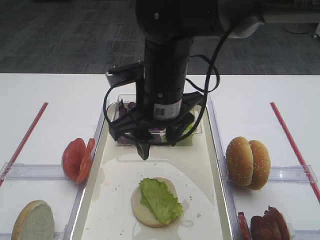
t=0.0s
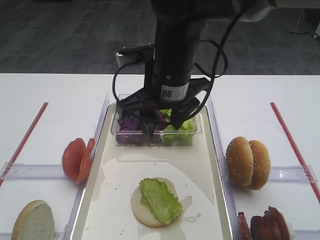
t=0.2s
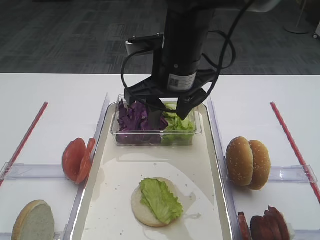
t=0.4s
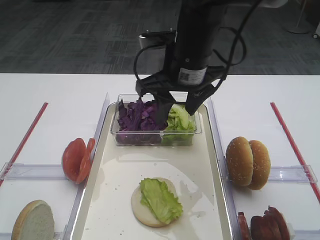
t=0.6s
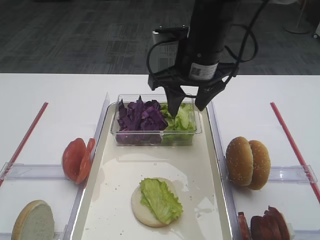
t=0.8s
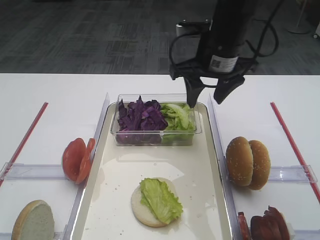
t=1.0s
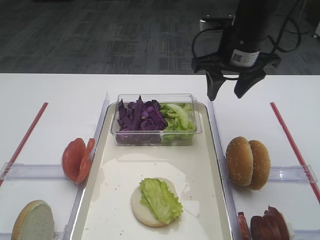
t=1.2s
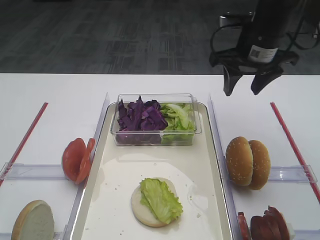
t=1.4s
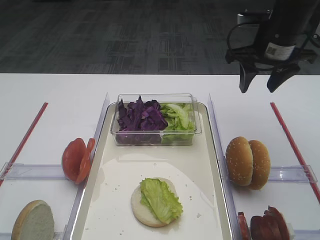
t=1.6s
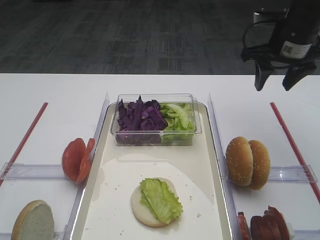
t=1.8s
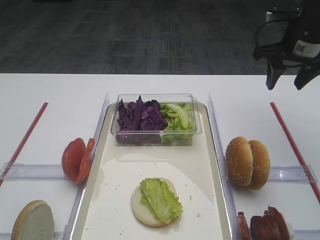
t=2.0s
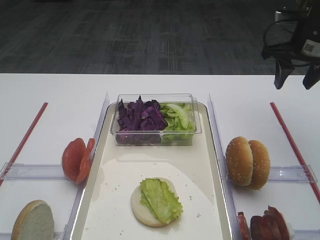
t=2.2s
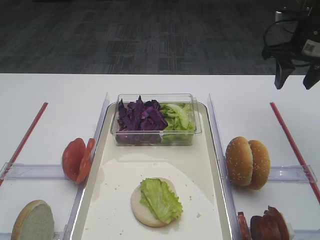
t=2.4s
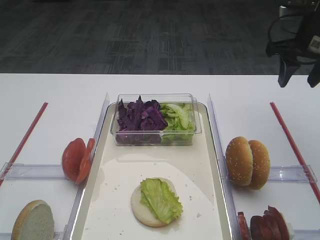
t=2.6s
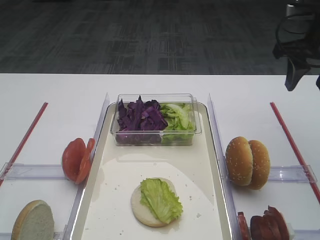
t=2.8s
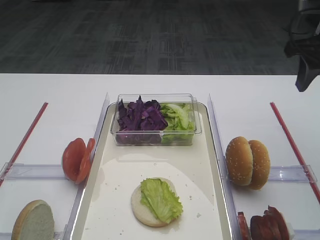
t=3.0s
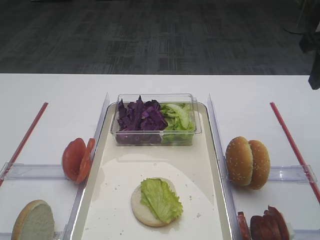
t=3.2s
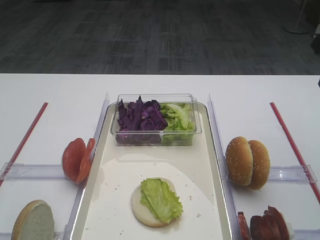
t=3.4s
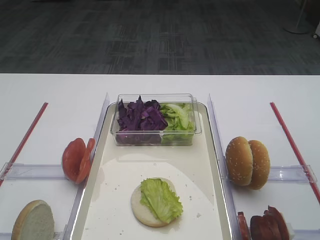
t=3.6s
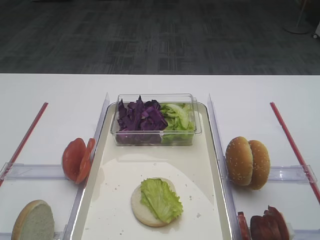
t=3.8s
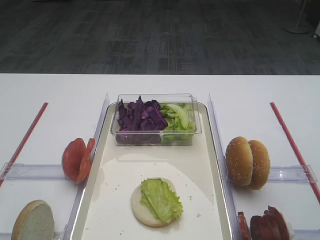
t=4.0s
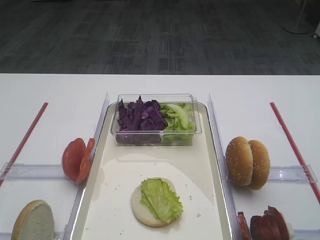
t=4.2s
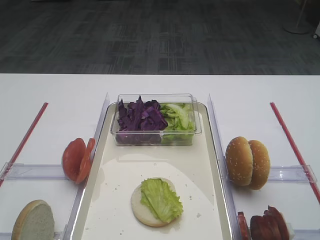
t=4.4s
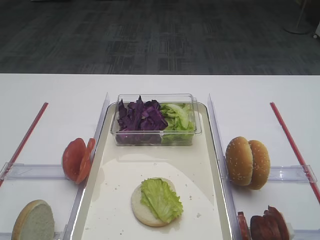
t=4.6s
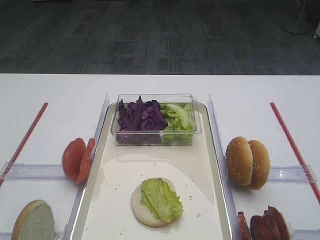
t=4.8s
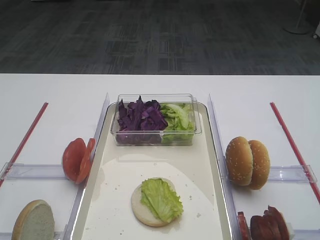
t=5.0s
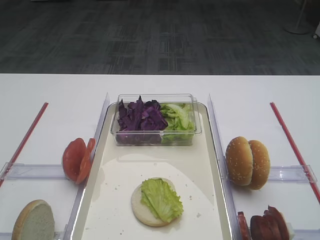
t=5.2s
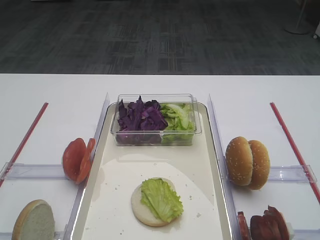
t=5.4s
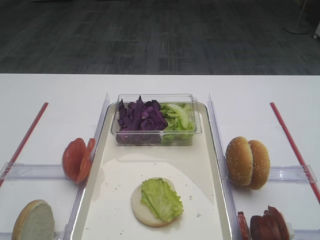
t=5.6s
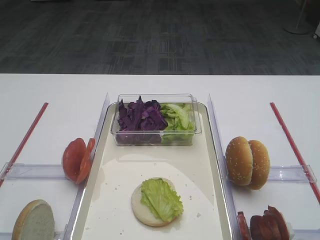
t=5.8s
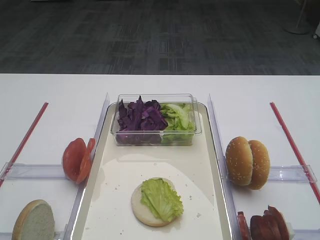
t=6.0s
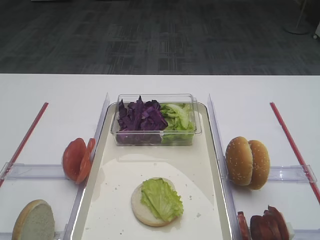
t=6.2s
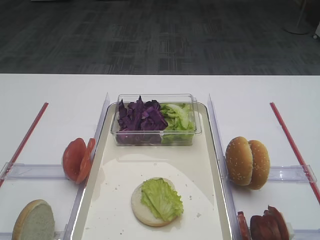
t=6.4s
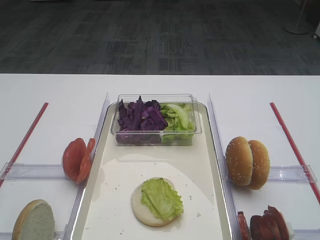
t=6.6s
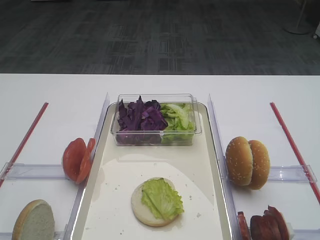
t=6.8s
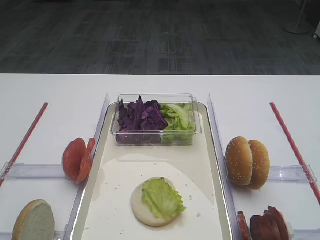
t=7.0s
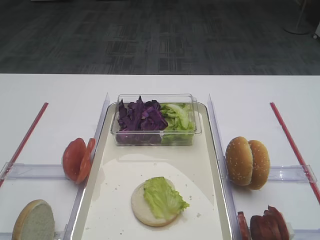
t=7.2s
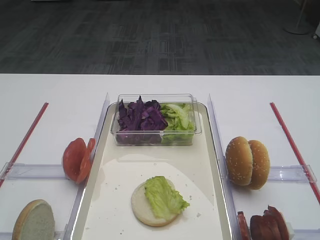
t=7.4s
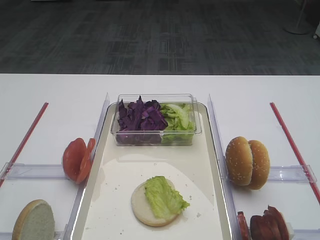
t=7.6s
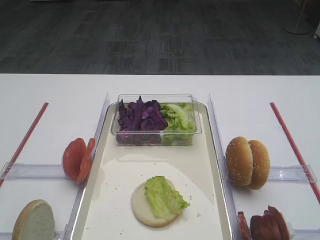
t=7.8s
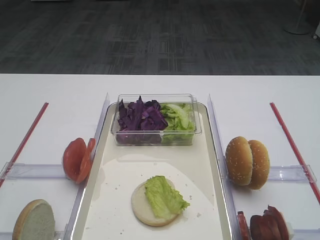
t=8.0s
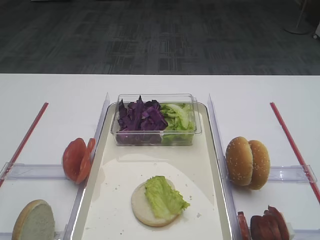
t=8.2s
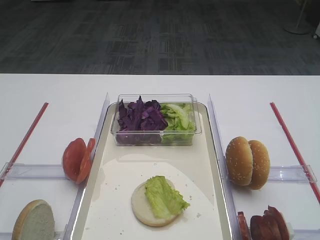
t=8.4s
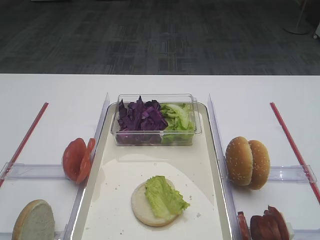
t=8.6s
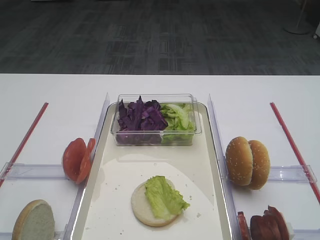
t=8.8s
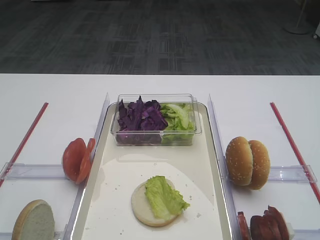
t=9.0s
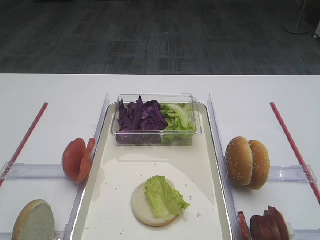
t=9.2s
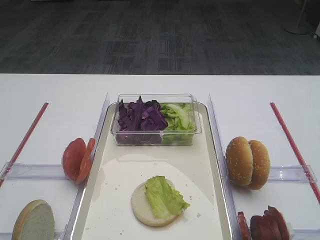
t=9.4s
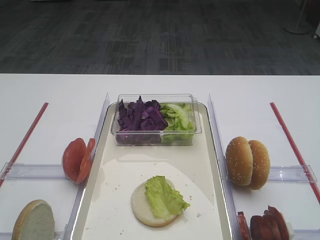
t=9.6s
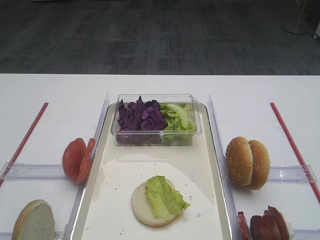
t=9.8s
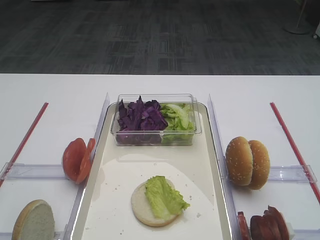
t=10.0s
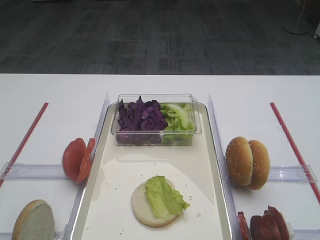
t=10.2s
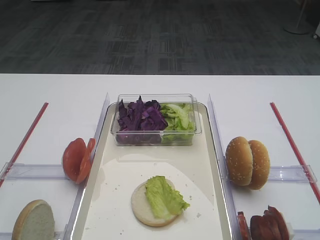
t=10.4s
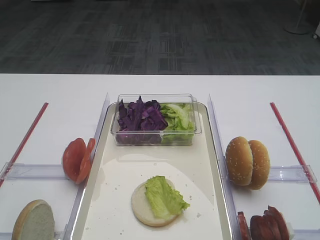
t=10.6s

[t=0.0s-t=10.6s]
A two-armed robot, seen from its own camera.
t=0.0s to t=1.6s: The right gripper shifts roughly 25 cm to the right and forward.
t=1.6s to t=3.0s: The right gripper travels to the right and backward by approximately 10 cm.
t=3.0s to t=4.6s: The right gripper moves backward, some 20 cm.
t=7.6s to t=10.6s: Both grippers stay put.
